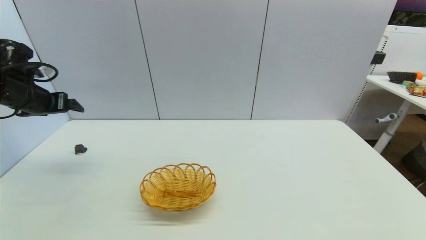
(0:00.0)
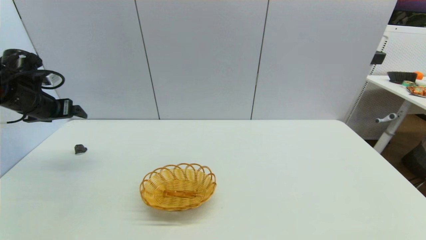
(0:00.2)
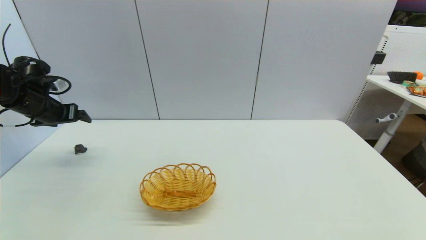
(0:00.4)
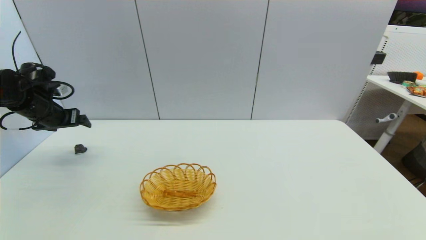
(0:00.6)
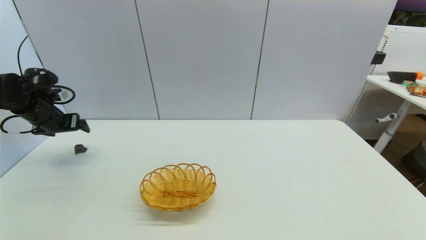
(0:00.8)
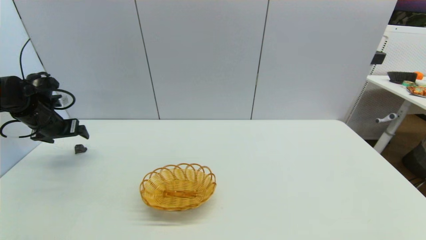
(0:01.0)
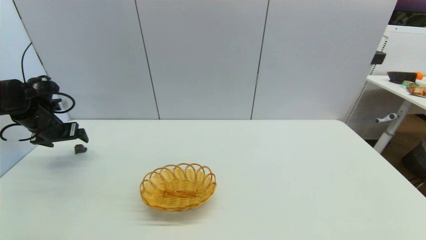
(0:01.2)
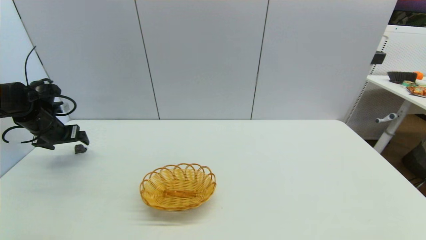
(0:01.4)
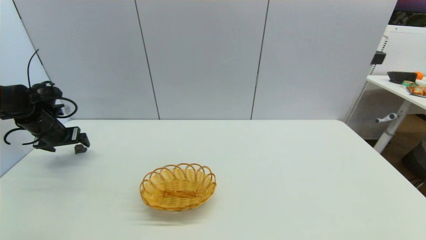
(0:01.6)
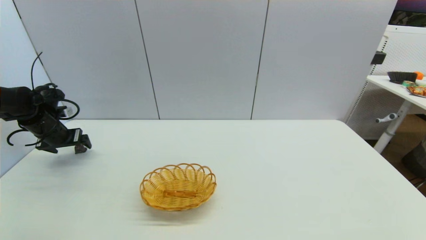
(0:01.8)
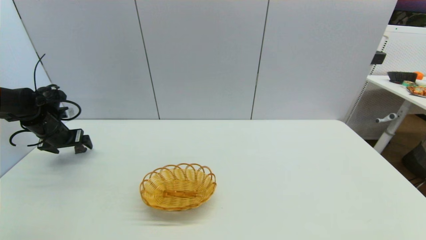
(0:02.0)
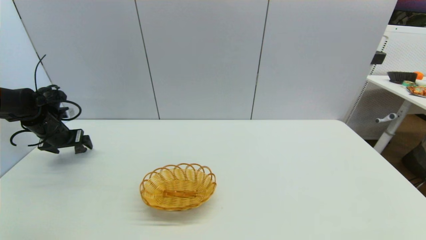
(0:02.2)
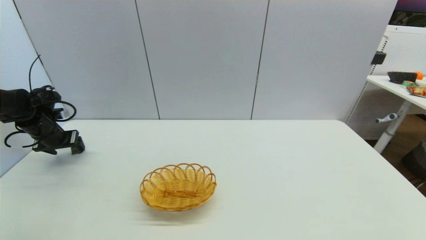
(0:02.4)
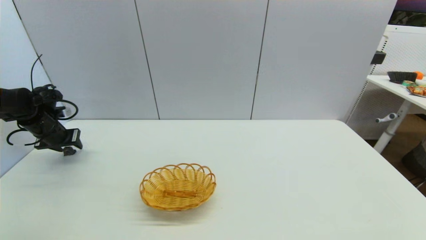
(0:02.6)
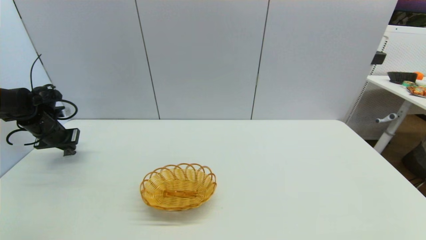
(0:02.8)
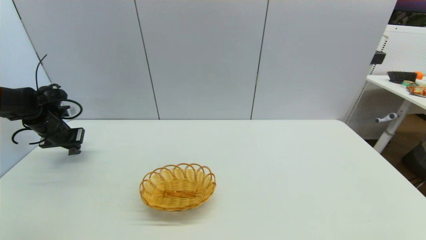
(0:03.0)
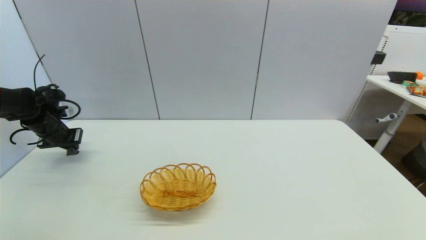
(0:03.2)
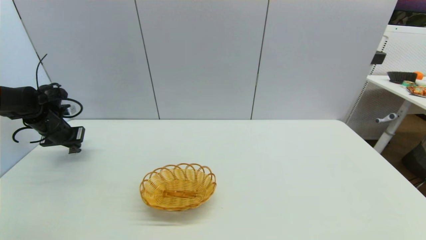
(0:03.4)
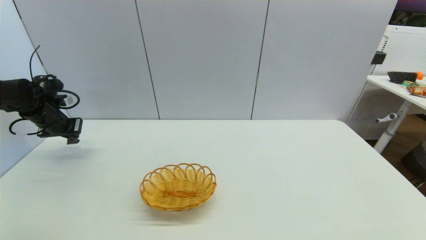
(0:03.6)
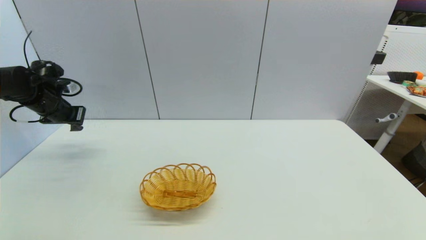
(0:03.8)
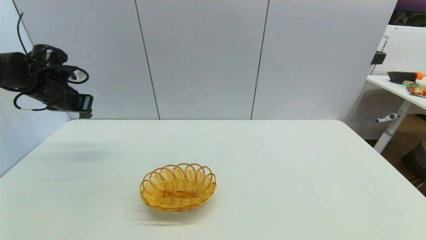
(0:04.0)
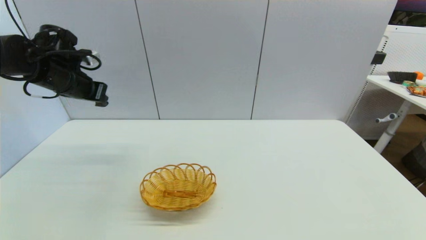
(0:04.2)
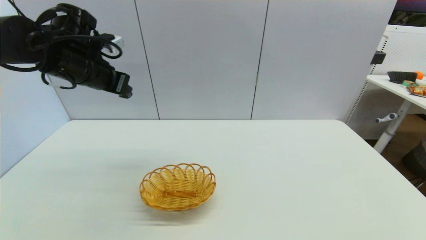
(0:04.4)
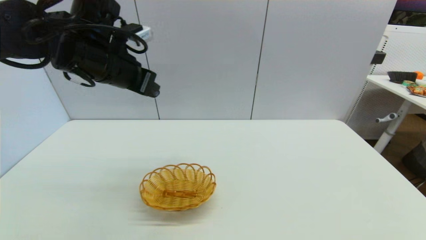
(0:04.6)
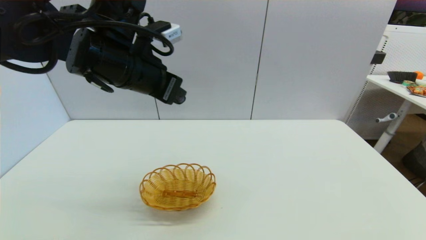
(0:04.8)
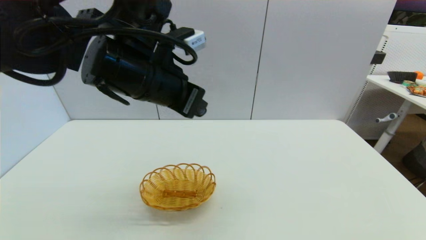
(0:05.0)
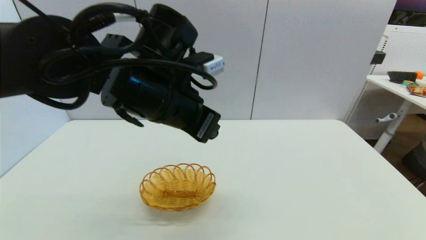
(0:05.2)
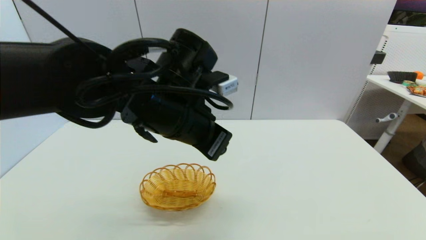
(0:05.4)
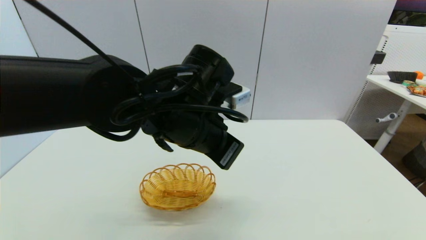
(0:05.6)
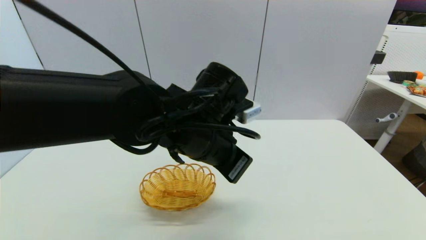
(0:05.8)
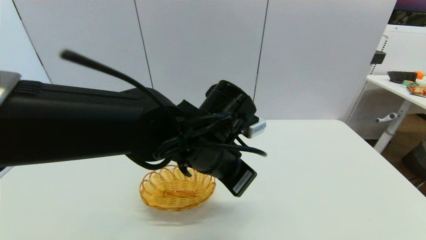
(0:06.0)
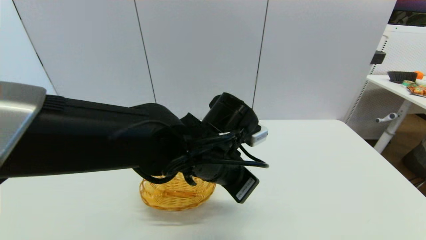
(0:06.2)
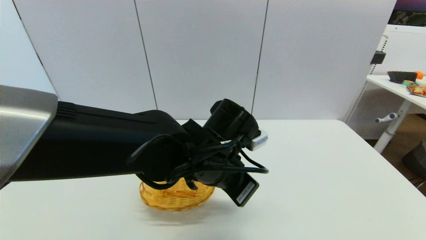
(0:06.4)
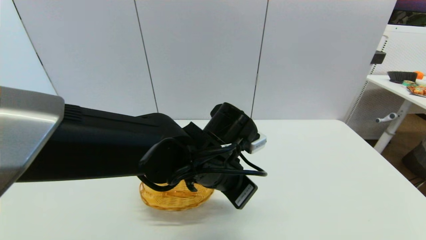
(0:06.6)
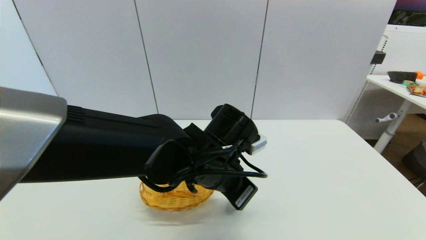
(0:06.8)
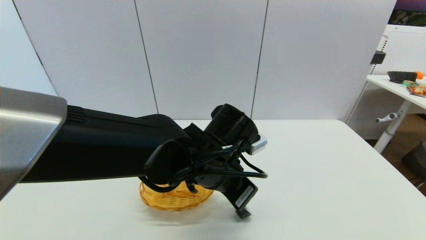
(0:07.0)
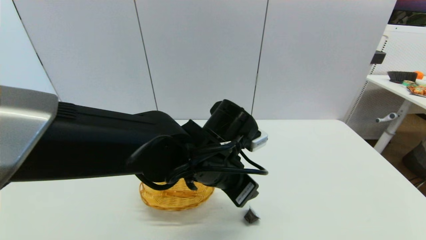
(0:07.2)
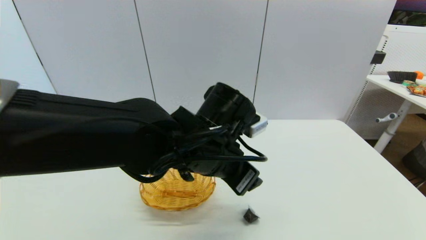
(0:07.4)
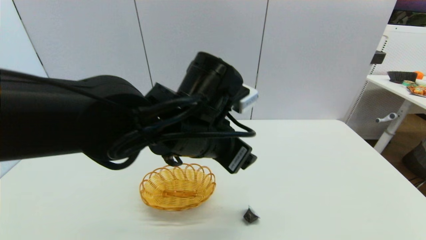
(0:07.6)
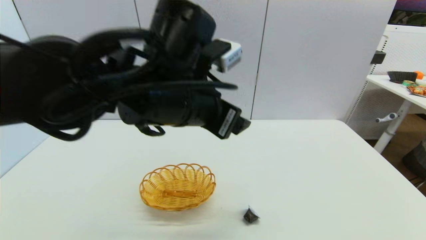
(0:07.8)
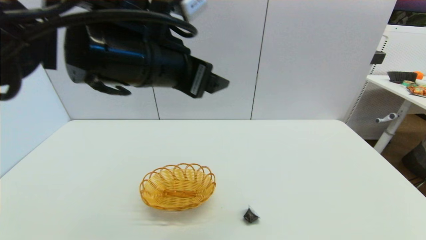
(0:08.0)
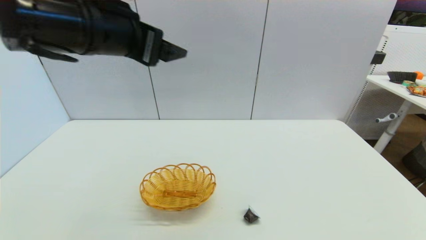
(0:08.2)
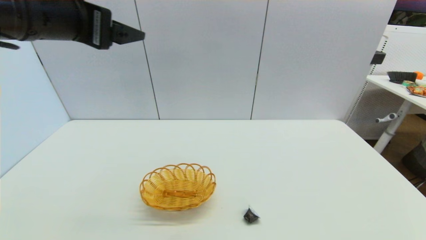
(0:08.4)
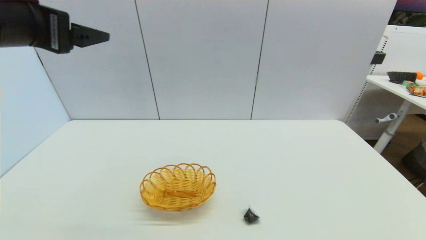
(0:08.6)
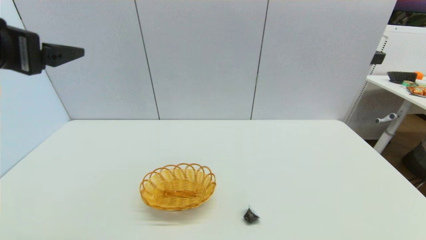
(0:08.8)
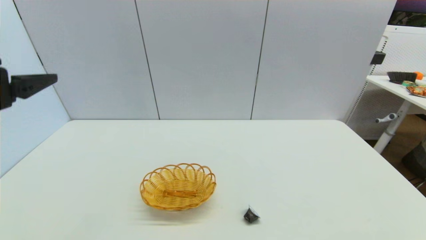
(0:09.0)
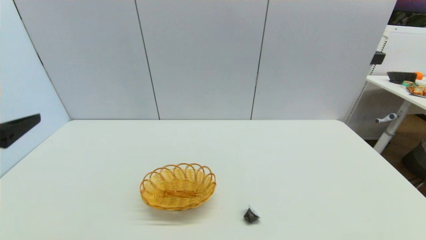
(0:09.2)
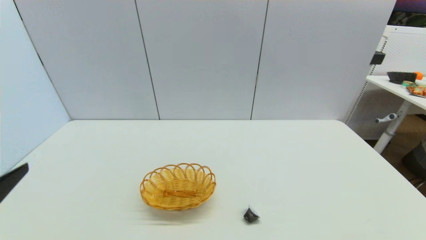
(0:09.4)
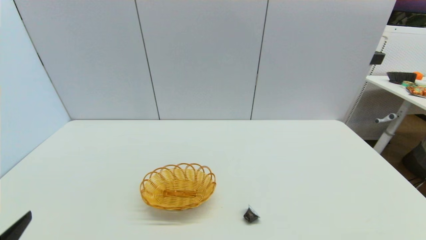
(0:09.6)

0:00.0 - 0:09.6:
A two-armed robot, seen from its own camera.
Step, 0:00.0 - 0:03.0: Grasp the coffee capsule with left gripper.
Step, 0:03.2 - 0:07.2: Place the coffee capsule on the table with left gripper.
0:00.0 - 0:01.6: The left gripper moves downward, about 10 cm.
0:01.6 - 0:03.2: The left gripper closes.
0:03.2 - 0:04.8: The left gripper moves to the right, upward and backward, approximately 35 cm.
0:04.8 - 0:06.4: The left gripper heads downward and to the right, covering roughly 20 cm.
0:06.4 - 0:08.0: The left gripper travels upward and to the left by about 20 cm, and opens its fingers.
0:08.0 - 0:09.6: The left gripper moves backward, to the left and downward, approximately 35 cm.

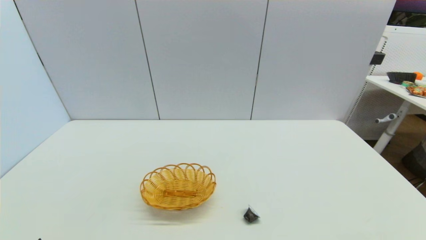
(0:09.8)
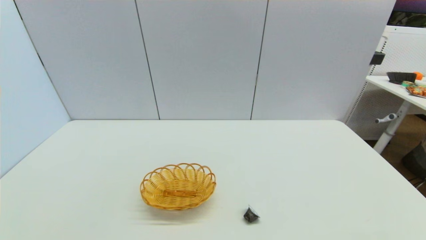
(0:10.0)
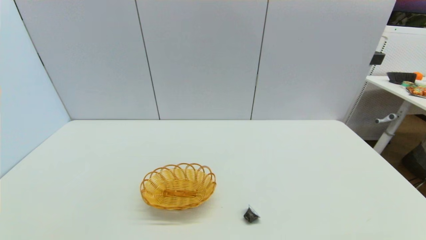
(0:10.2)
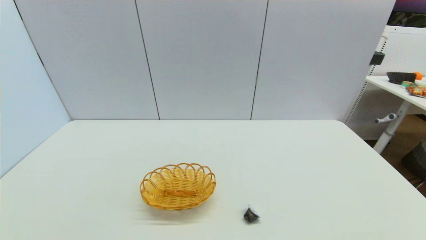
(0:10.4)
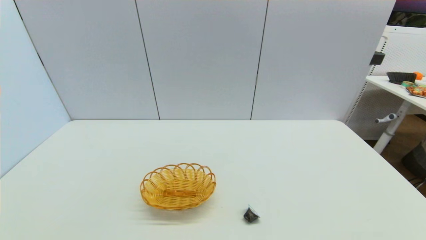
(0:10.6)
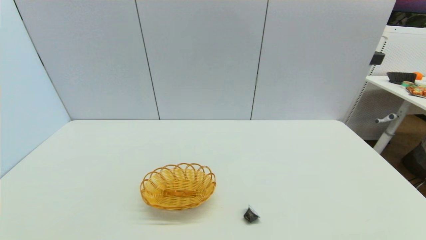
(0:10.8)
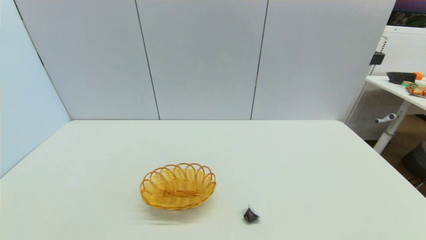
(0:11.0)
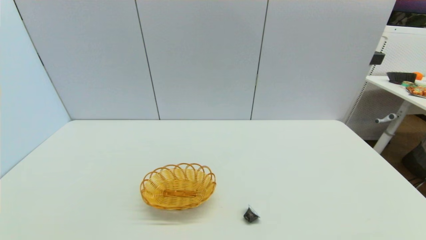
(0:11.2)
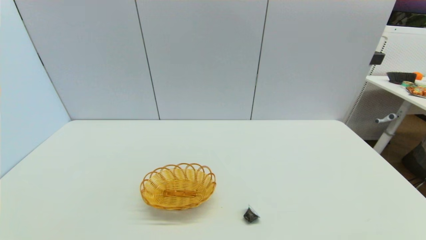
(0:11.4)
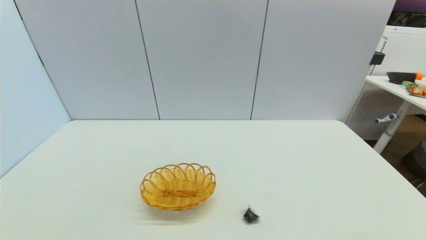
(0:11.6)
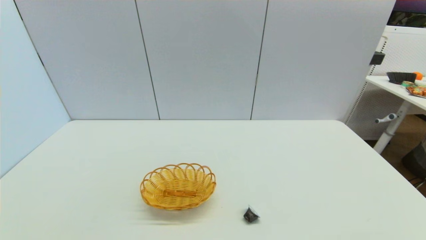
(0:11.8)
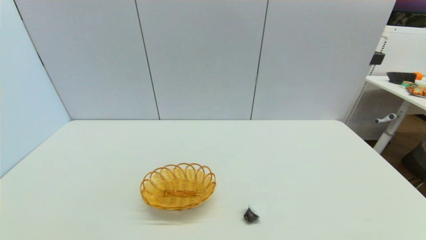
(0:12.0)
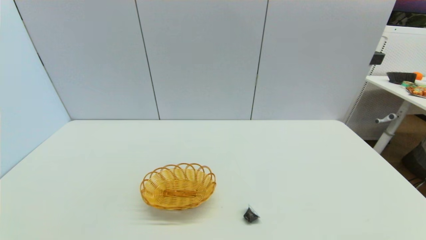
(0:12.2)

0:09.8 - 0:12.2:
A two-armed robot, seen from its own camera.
0:11.0 - 0:12.2: Both grippers stay about where they are.
